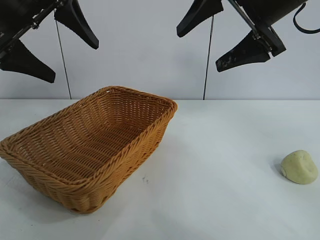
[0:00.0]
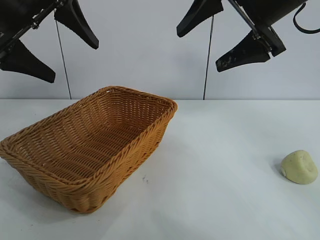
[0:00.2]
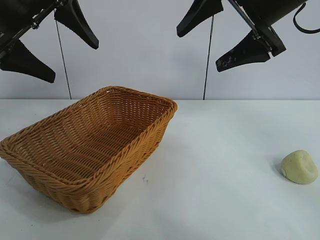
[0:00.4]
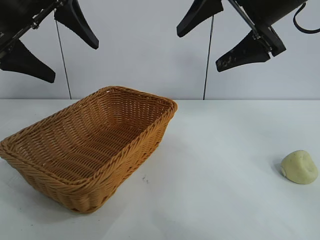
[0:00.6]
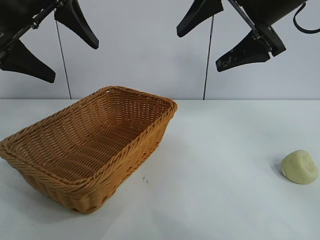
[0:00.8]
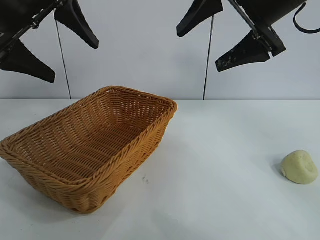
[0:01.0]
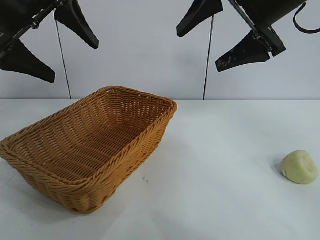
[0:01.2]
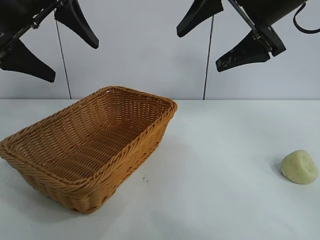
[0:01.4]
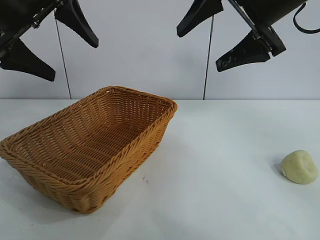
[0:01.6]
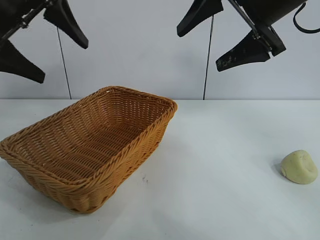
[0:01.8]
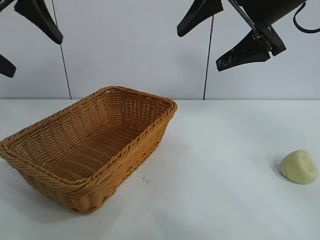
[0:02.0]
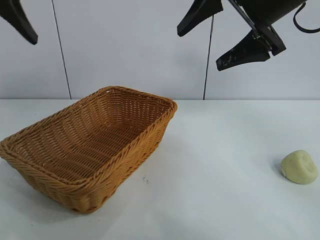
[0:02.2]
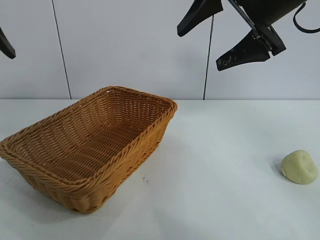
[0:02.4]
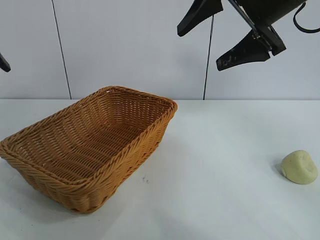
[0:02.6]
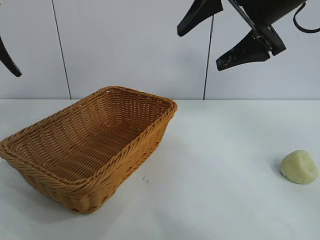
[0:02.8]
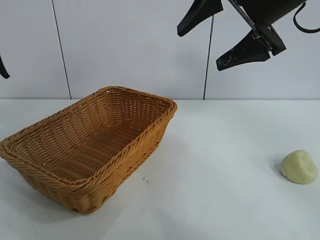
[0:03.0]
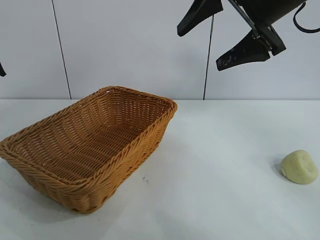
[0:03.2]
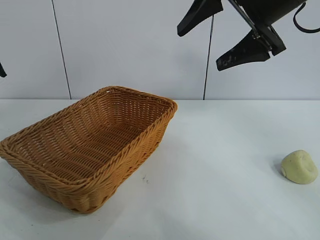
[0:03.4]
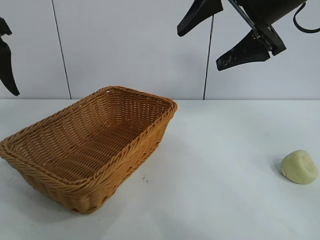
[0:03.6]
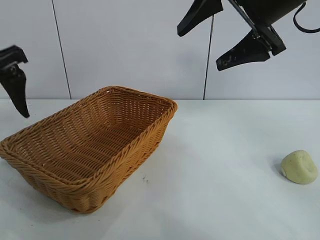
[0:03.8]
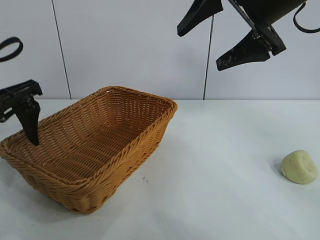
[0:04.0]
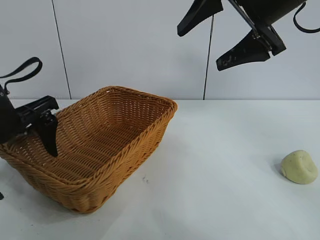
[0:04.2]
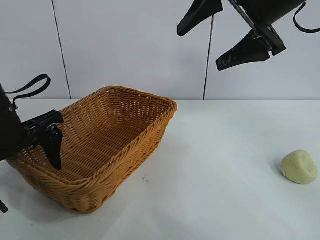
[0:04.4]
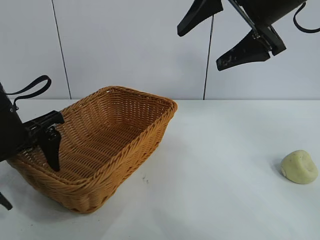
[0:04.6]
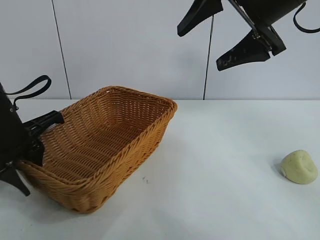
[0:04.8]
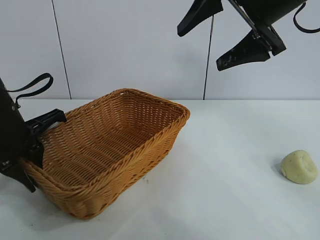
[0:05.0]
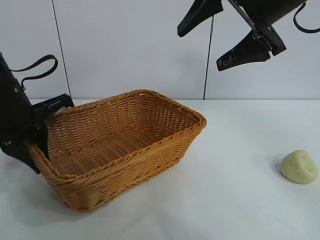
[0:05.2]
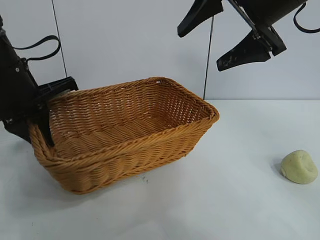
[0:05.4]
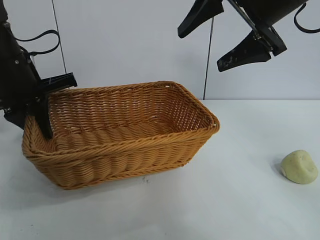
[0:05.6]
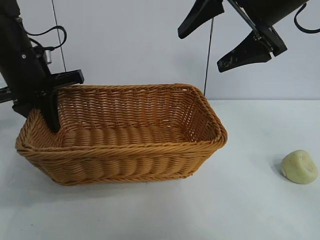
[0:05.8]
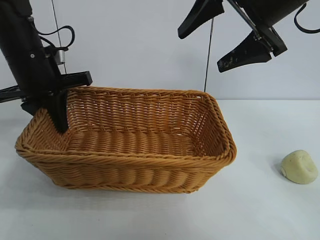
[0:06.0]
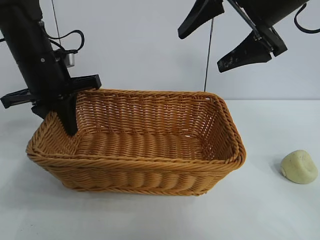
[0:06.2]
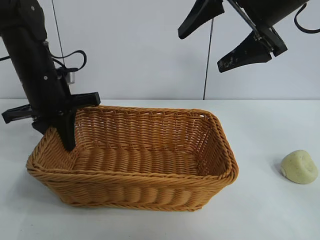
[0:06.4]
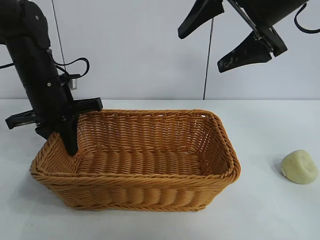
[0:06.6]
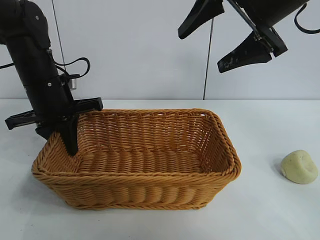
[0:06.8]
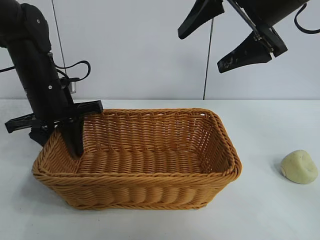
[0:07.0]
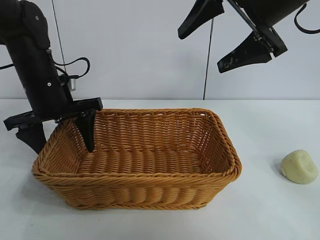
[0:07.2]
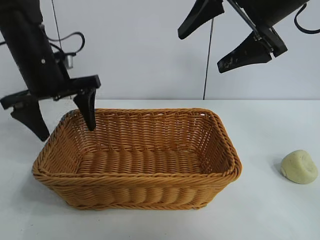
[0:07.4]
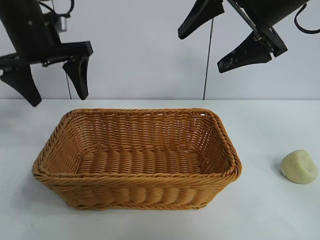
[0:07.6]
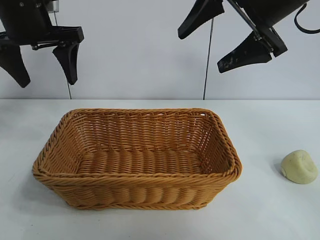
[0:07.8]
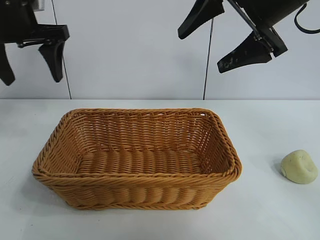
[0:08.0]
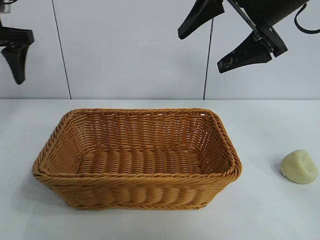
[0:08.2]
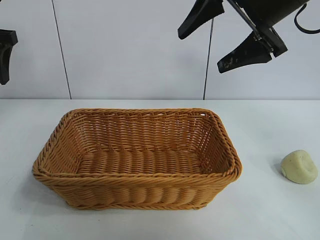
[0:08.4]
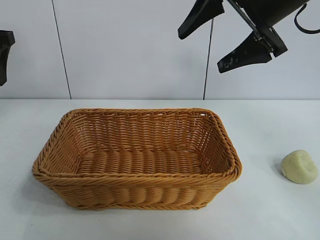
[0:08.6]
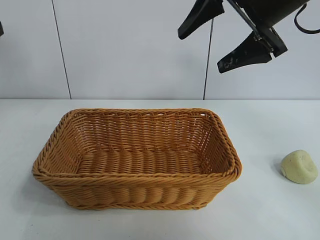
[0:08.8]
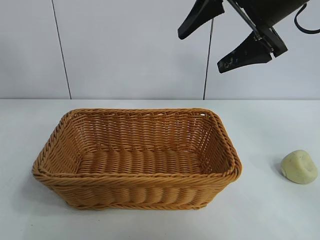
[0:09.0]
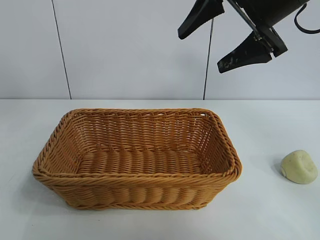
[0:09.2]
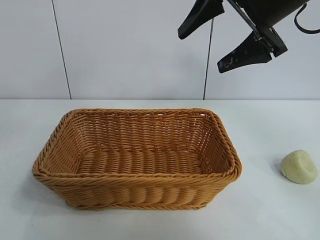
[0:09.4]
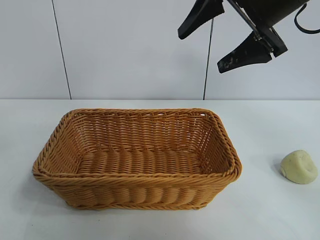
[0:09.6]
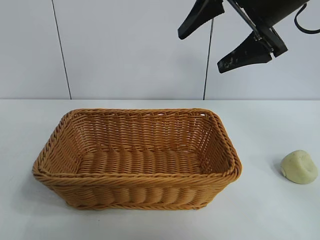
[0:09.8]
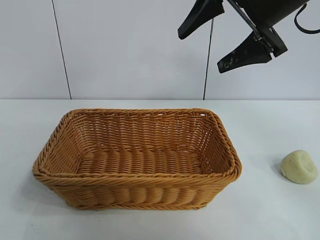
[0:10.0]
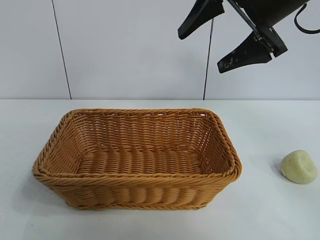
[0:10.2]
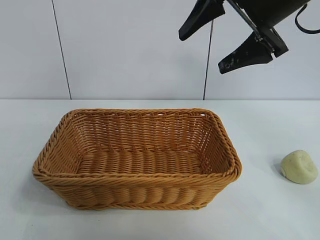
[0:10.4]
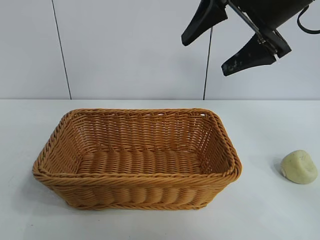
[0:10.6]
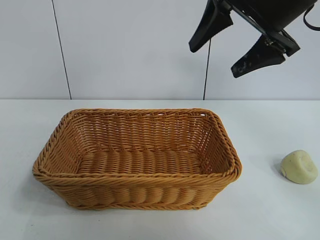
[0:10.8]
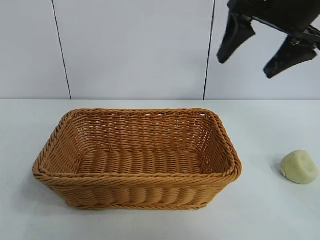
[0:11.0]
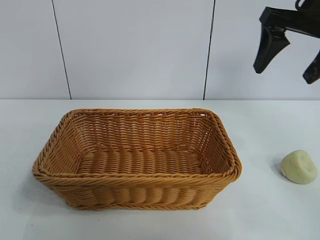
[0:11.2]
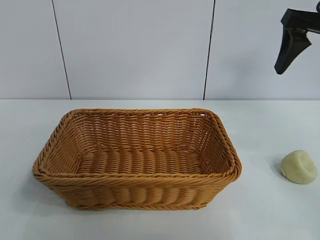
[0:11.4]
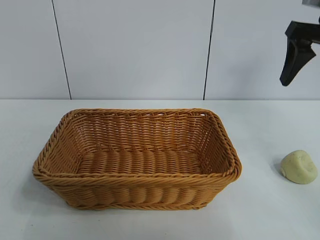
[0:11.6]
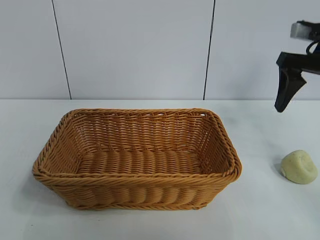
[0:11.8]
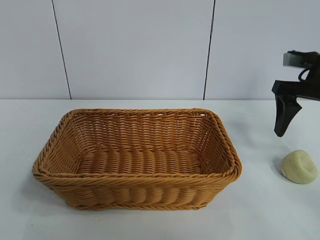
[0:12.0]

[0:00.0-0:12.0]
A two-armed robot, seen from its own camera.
Task of the whole recording: pick up the egg yolk pastry and put it into the basket.
Step, 0:01.4 to 0:04.8: Grasp the basket with left gripper.
Step, 0:05.0 to 0:07.0: Place the basket in the center of view with left gripper.

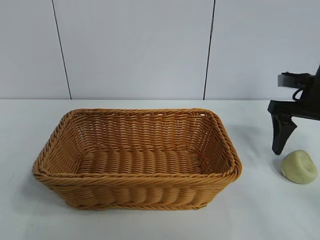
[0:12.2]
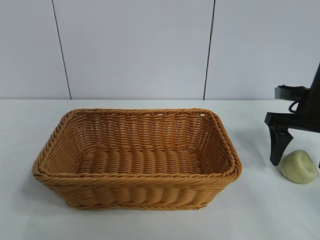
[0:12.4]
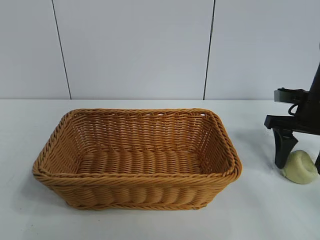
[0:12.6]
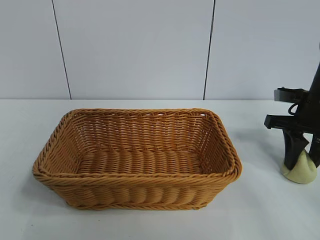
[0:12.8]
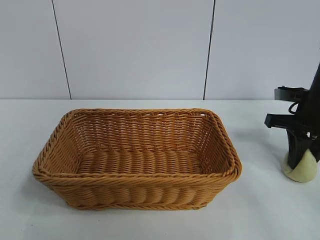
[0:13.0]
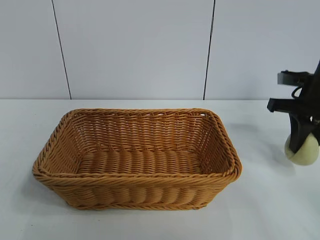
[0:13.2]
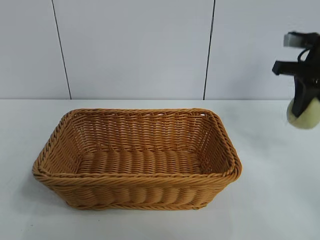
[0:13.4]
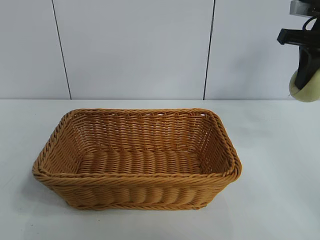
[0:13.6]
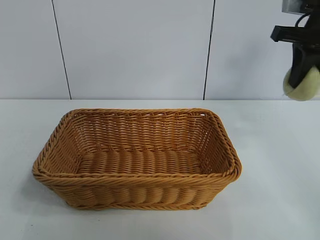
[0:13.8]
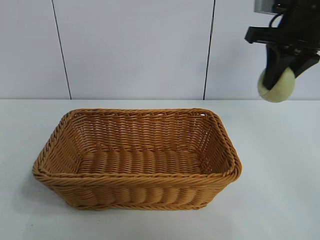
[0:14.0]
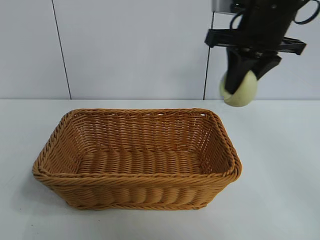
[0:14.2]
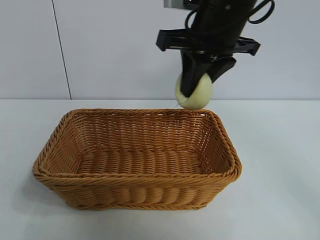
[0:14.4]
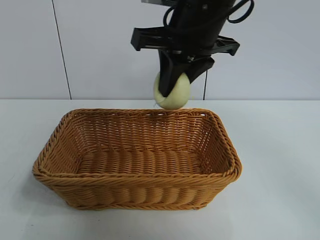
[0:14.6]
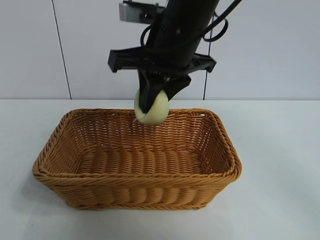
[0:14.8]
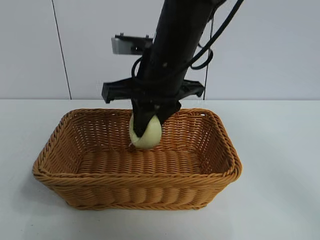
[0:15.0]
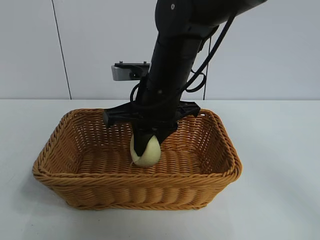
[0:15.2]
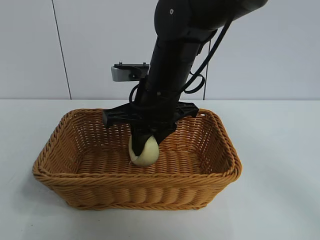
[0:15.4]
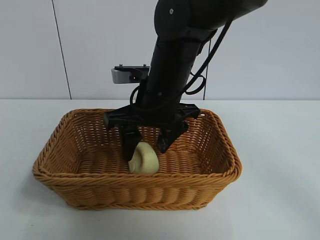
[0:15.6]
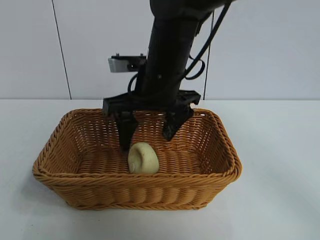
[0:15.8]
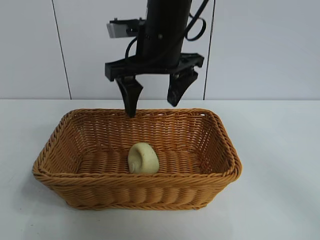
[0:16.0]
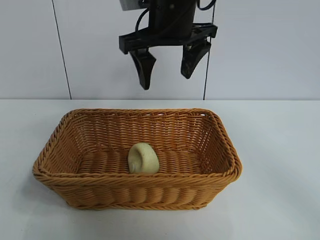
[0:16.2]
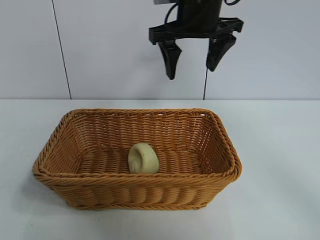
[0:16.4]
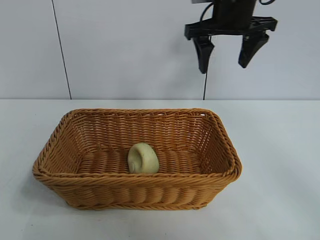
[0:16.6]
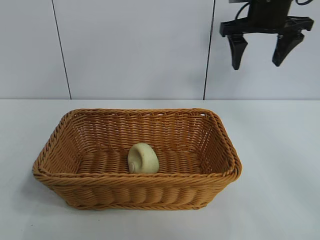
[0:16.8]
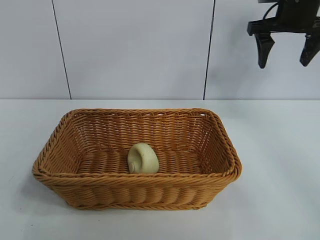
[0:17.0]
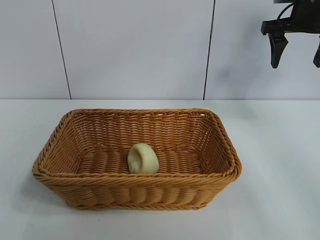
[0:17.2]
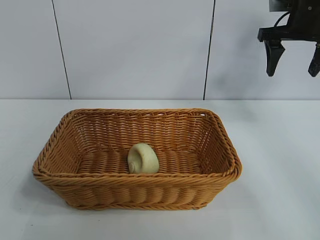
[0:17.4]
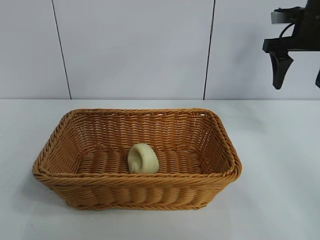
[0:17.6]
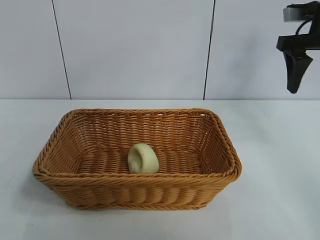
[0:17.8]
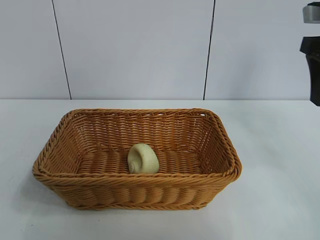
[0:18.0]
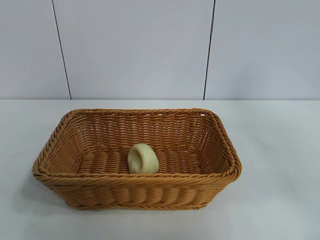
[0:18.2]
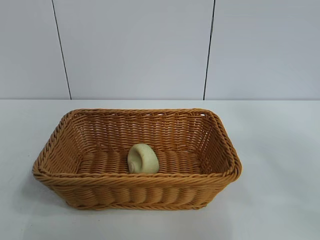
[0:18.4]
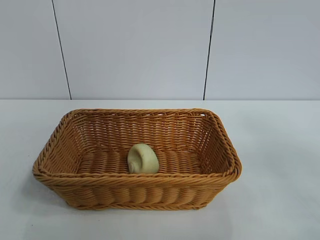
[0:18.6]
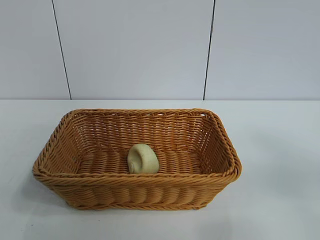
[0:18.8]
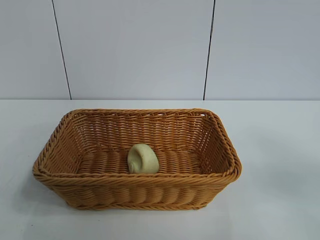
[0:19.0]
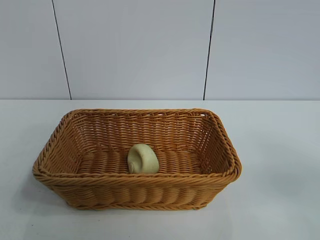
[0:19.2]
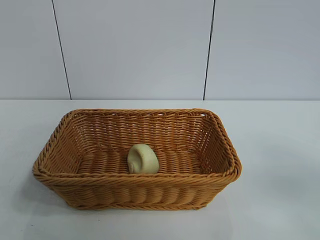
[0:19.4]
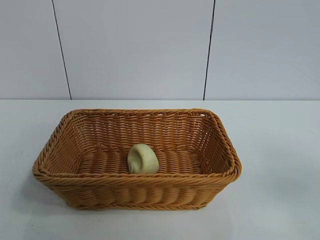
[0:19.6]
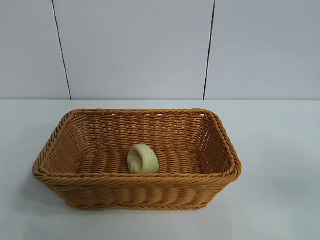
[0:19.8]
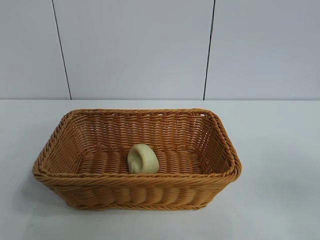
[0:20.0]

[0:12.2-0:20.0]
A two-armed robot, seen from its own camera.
Task of the whole recording: pick up the egg yolk pastry and put it into the basket.
Step, 0:13.0 to 0:15.4: Place the egg yolk pastry in the basket with right gripper.

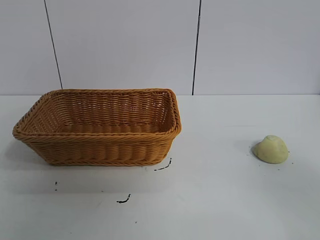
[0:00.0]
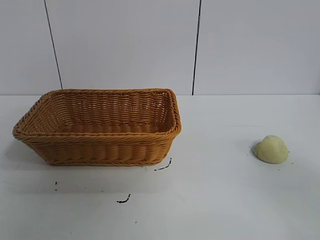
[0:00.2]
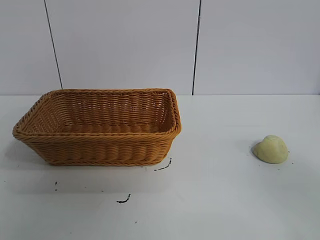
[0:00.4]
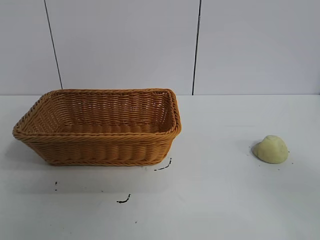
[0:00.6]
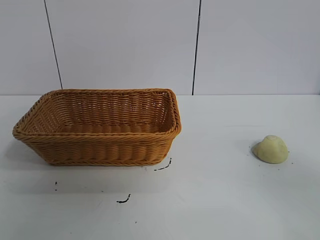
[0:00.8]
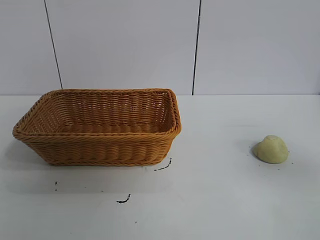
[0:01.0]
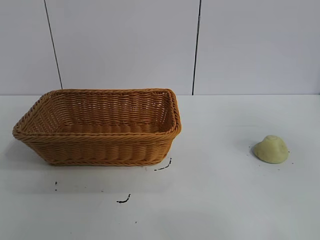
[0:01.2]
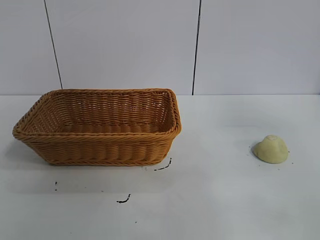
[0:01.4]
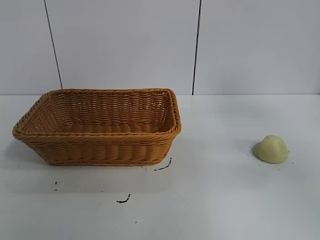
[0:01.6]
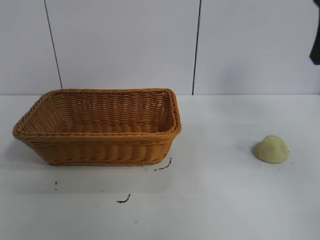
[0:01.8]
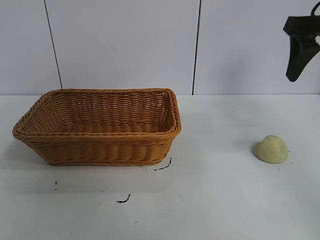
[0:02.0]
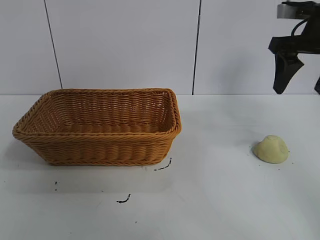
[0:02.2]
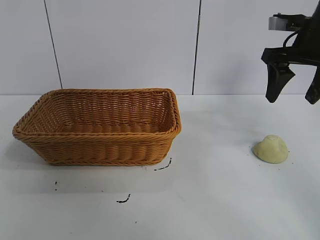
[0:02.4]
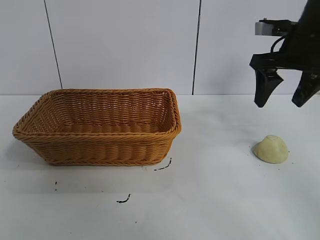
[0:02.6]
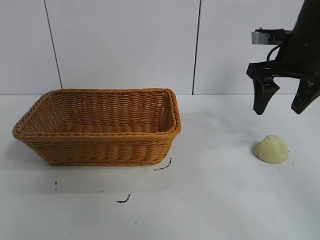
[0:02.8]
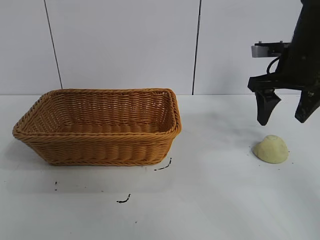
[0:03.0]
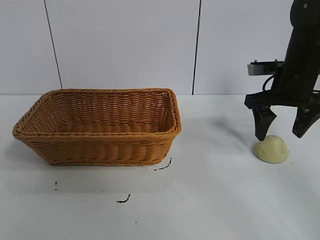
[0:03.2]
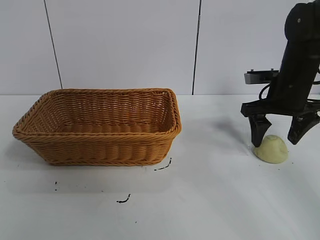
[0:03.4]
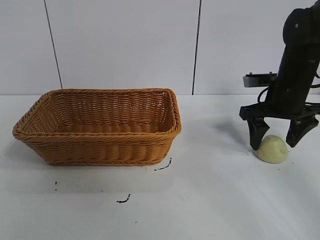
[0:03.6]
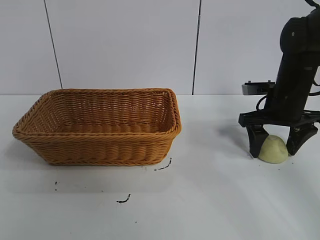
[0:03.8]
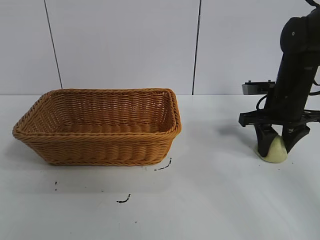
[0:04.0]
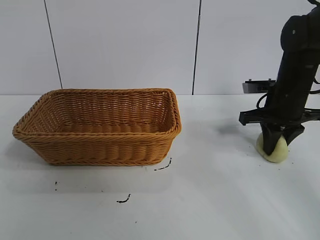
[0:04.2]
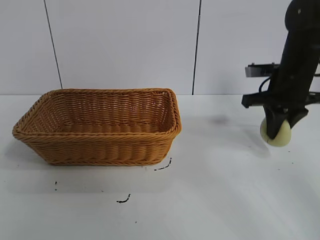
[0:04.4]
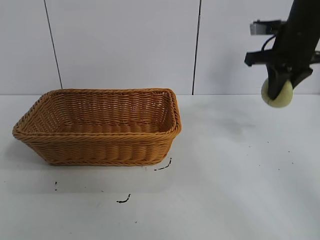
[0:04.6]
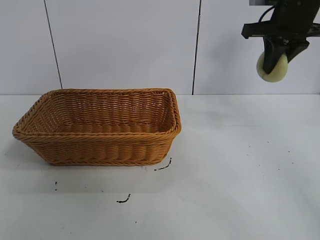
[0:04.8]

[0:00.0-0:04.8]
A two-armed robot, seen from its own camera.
Task of the whole recording: pick up the egg yolk pastry and put it into the basket.
Step, 0:00.8 to 0:04.0: Grasp egg yolk pastry with right gripper.
